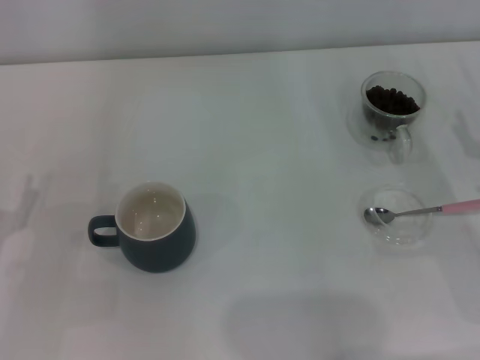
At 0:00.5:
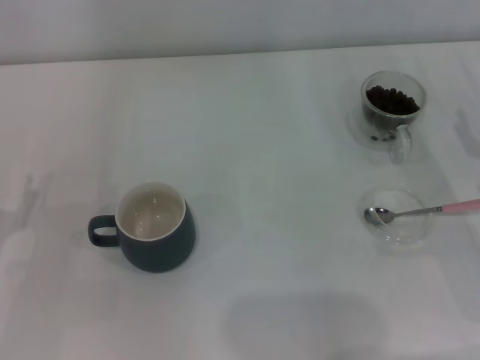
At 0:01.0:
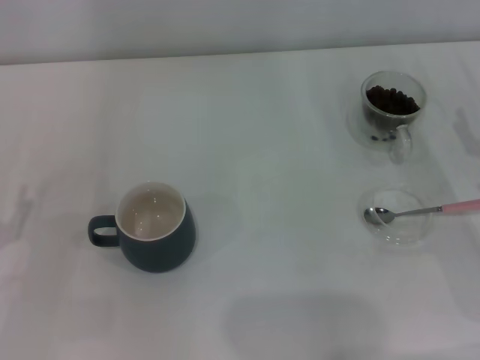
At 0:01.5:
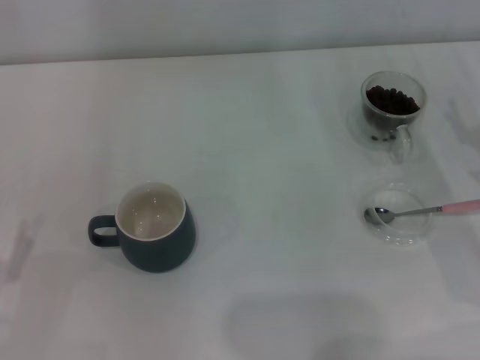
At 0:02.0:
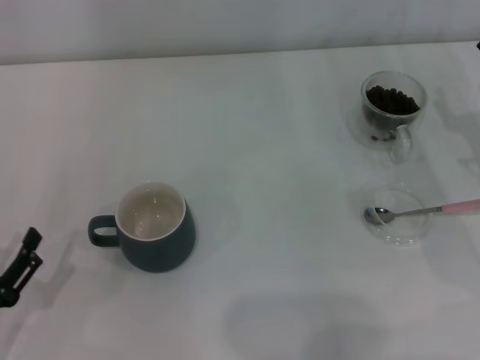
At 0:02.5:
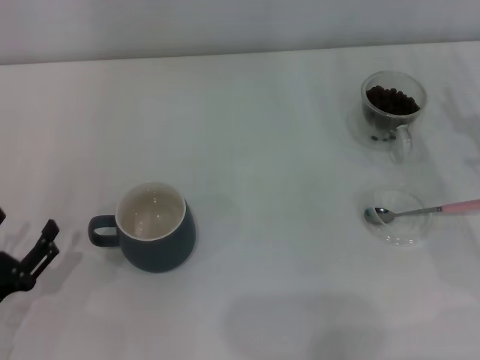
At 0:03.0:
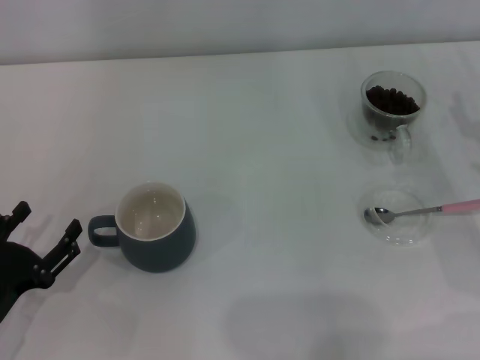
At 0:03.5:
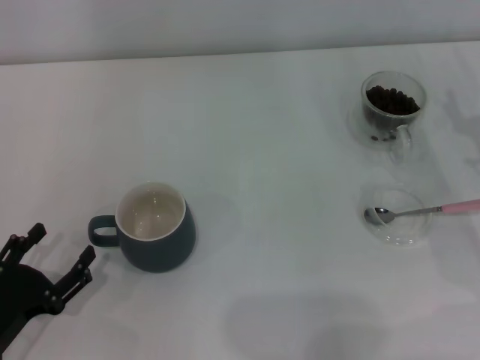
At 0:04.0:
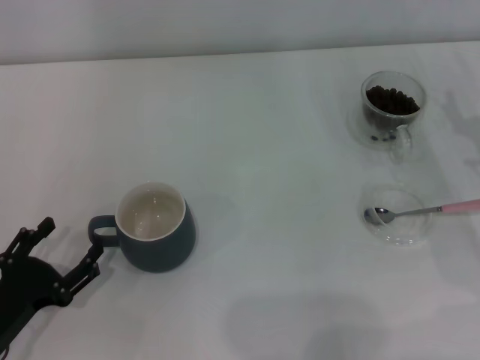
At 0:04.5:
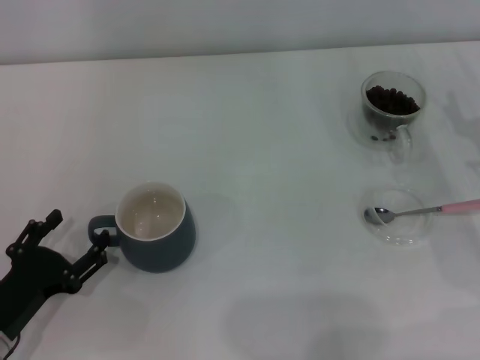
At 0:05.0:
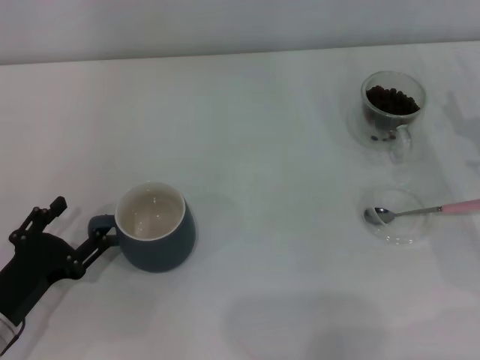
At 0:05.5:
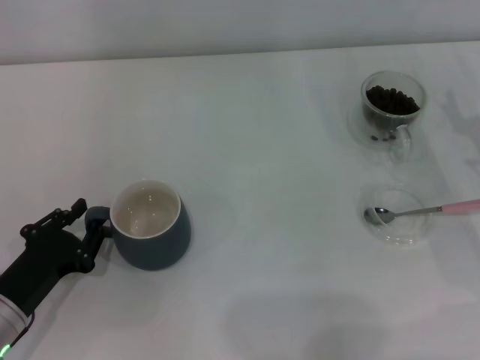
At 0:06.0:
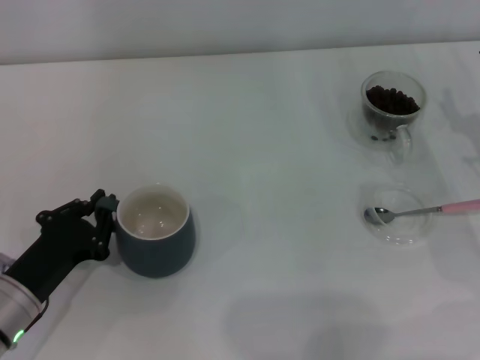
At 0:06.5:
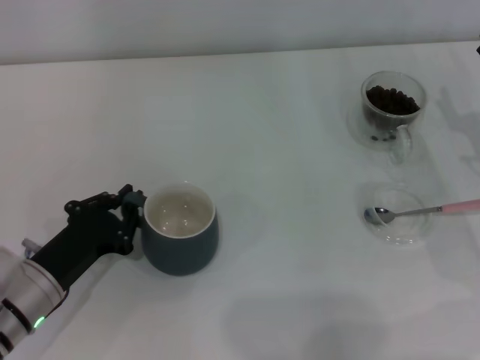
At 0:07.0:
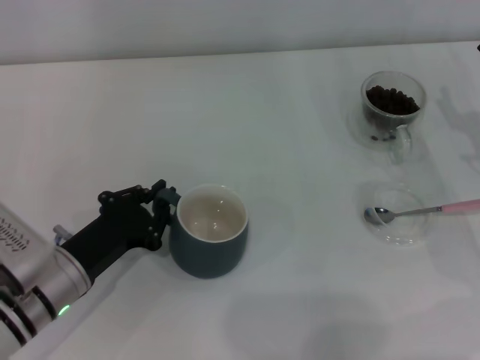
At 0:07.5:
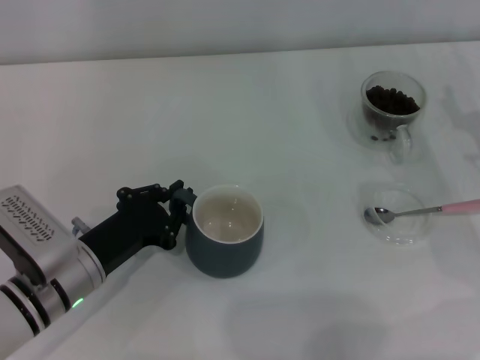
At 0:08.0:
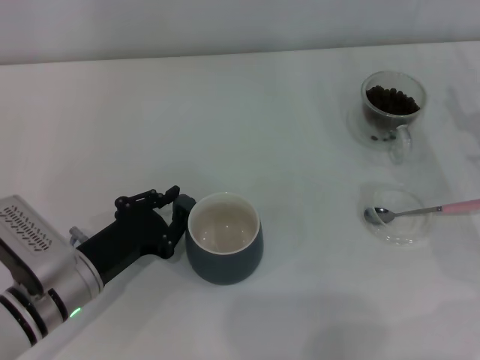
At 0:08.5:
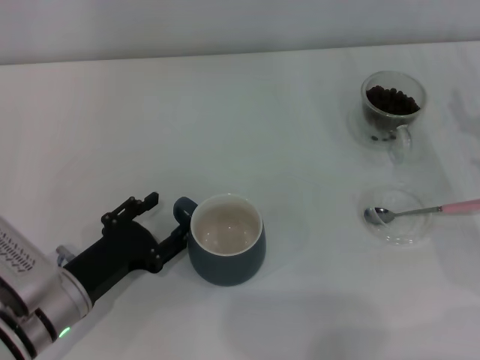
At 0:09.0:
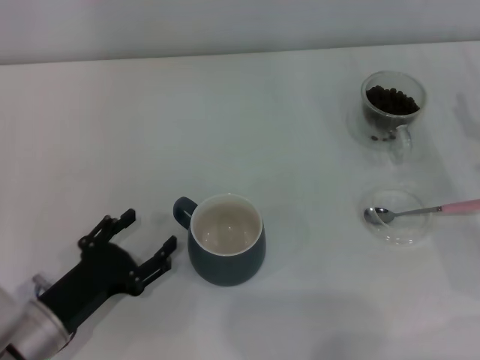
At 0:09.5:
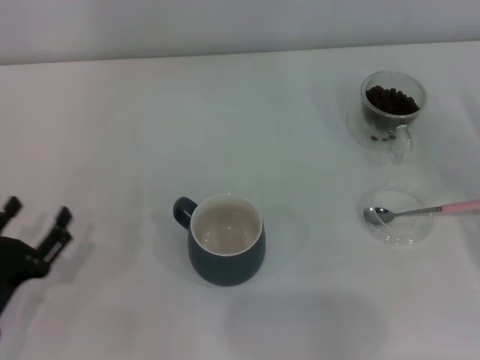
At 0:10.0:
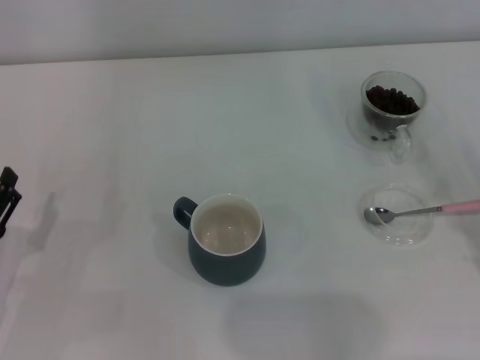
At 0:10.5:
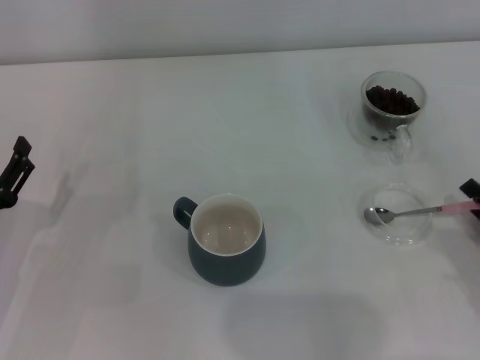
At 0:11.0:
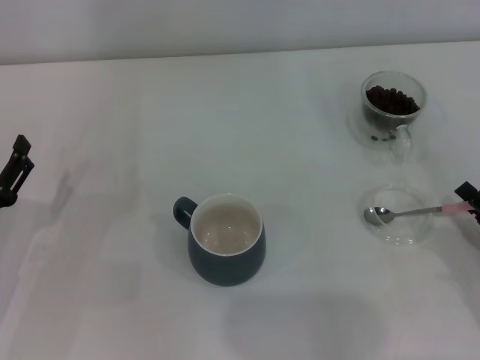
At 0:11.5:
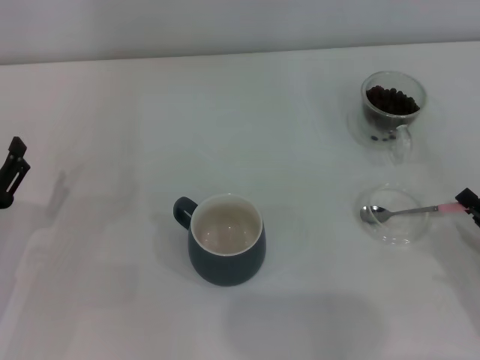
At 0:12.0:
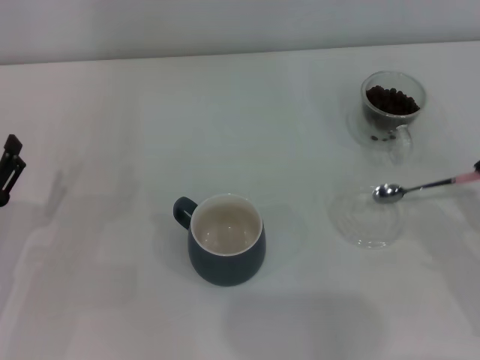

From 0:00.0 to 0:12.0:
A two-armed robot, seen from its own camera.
Task of the whole recording: Use a pink spoon to take out the coffee beans from the glass and pour them into the gray cup.
Step, from 0:00.0 to 0:08.5: Move the cup to the center of view with the left gripper.
From 0:00.0 to 0:02.0: The left gripper moves backward, approximately 5 cm.
From 0:02.0 to 0:04.0: There are only small adjustments of the grippers.
From 0:04.0 to 0:06.0: The left gripper ends up about 5 cm from where it was, and closes up.
From 0:06.0 to 0:08.0: The left gripper moves to the right, approximately 5 cm.
From 0:08.0 to 0:10.0: The left gripper shifts roughly 10 cm to the left, and opens. Meanwhile the right gripper heads backward, covering approximately 15 cm.
From 0:10.0 to 0:12.0: The right gripper closes.

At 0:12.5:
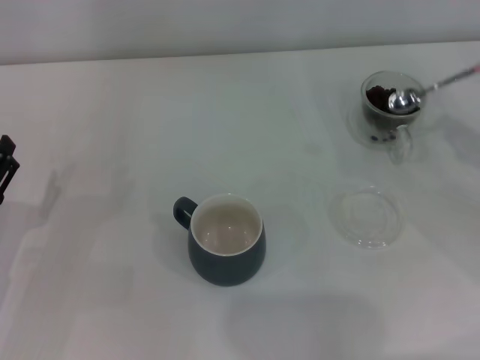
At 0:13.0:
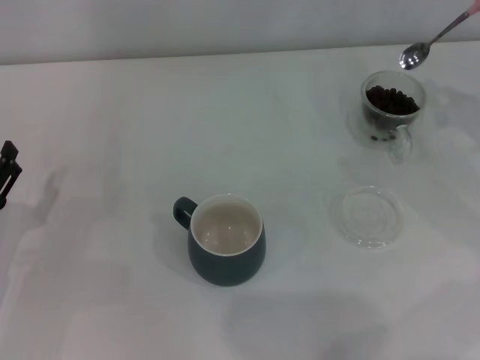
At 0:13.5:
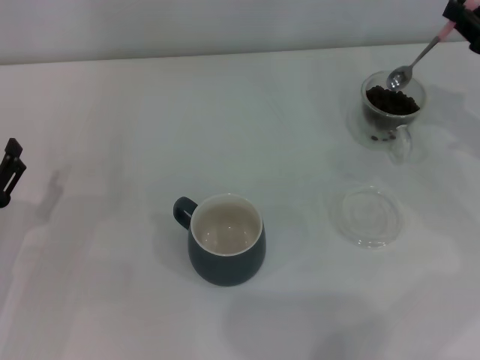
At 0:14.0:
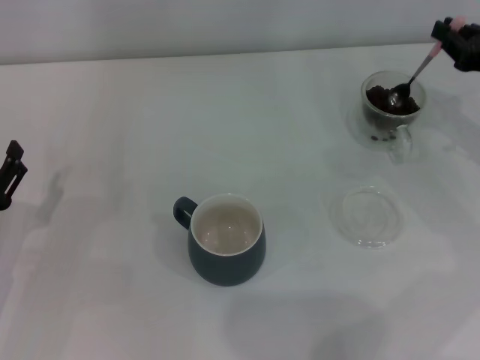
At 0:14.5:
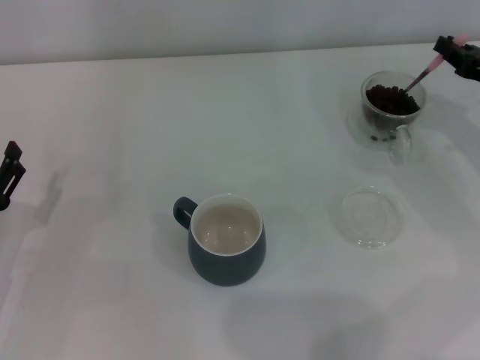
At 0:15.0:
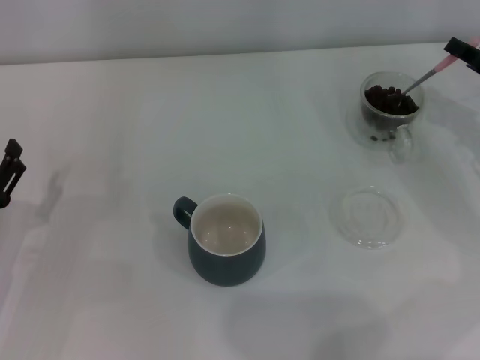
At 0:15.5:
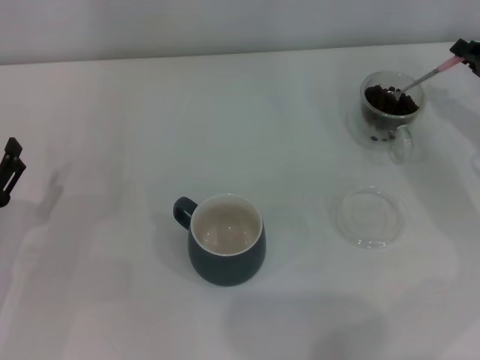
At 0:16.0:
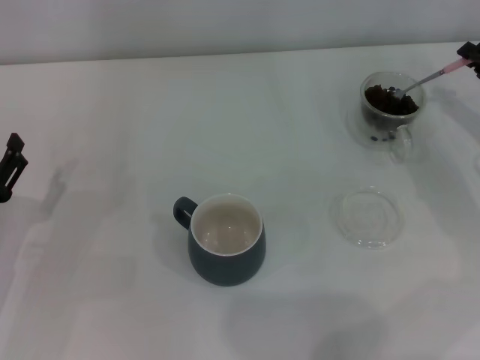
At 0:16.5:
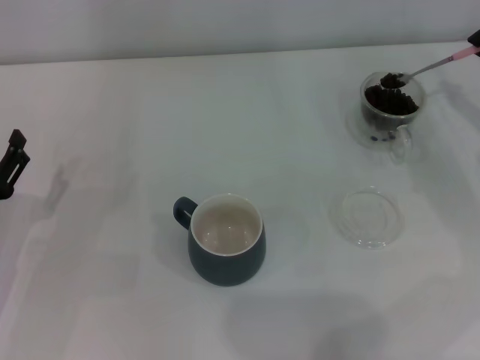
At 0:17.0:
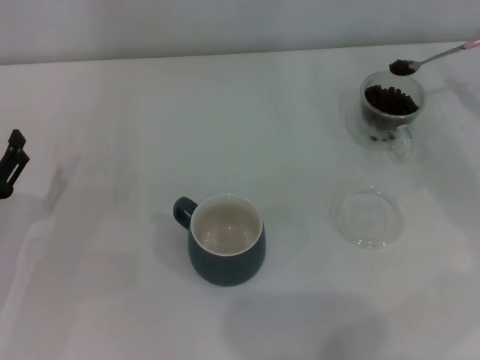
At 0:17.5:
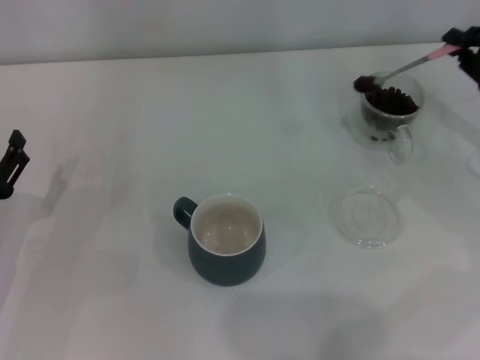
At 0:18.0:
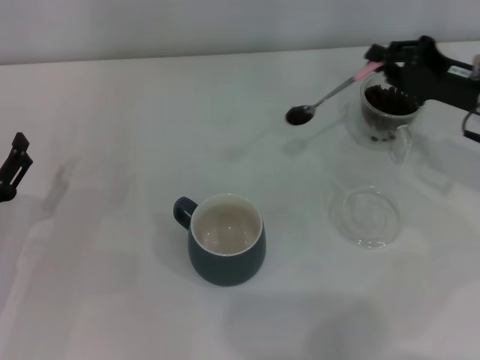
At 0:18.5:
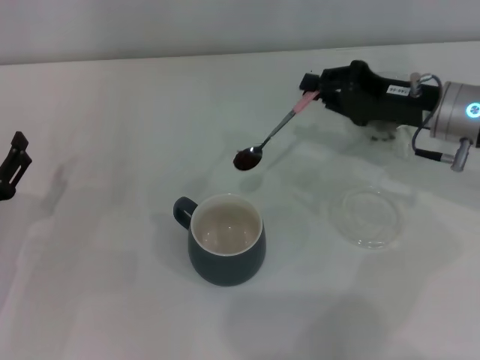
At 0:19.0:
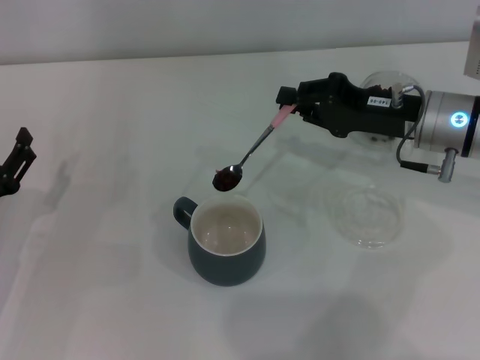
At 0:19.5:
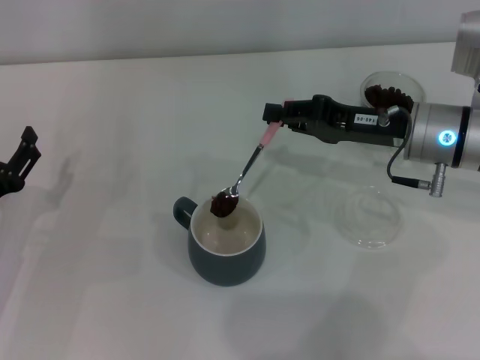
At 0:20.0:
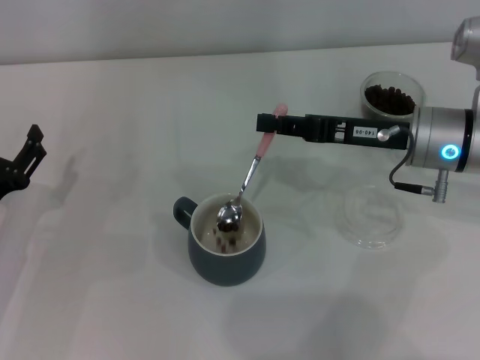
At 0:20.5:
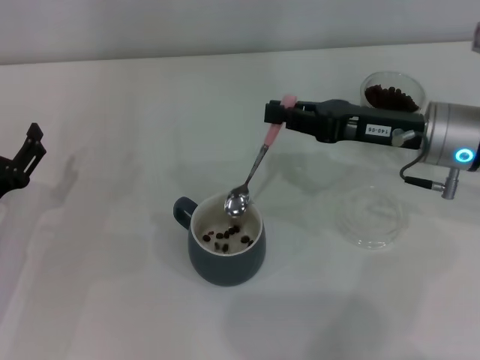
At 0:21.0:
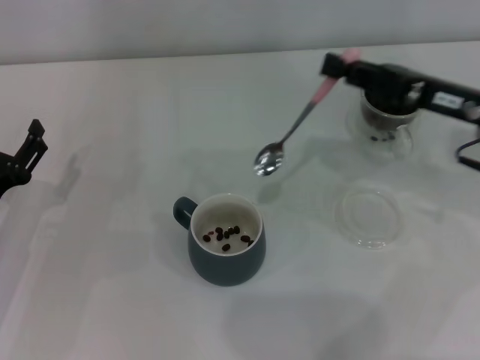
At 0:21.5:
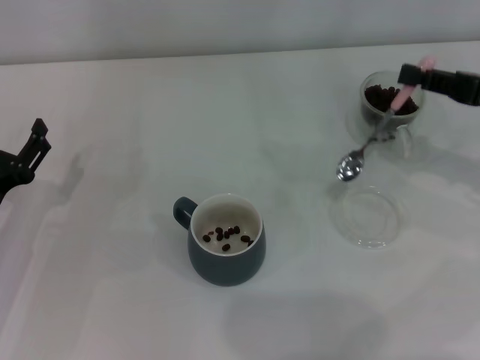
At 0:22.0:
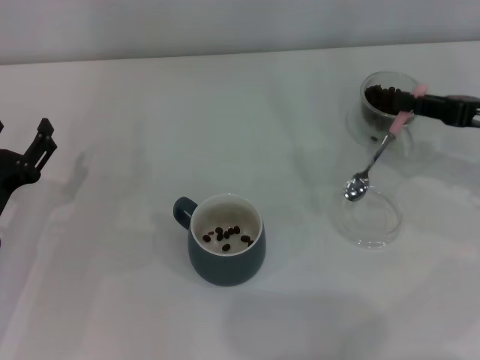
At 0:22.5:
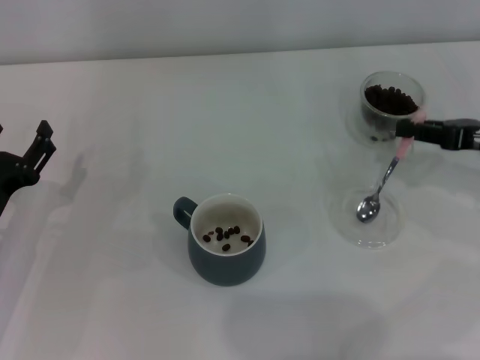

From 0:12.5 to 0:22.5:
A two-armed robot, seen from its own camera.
Task of the whole recording: Use a pink spoon to take out the coffee beans from the glass and pour them into the gray cup.
Step, from 0:12.5 to 0:20.5: Scoop a spoonful of beans into the cup with the right gripper.
From 0:12.5 to 0:14.5: The right gripper moves forward, about 10 cm.
From 0:16.5 to 0:18.5: The right gripper goes about 10 cm to the left.
From 0:20.5 to 0:22.5: The right gripper heads to the right, covering about 15 cm.

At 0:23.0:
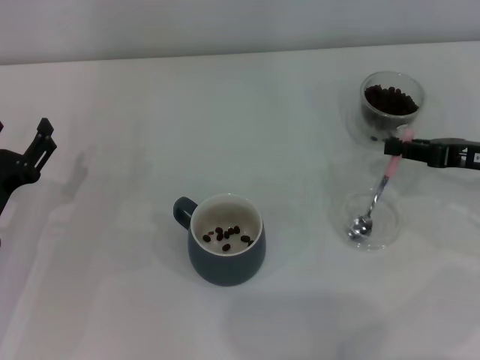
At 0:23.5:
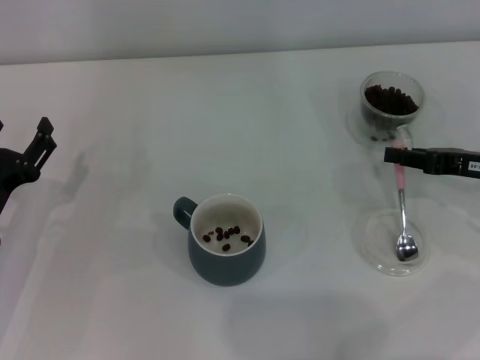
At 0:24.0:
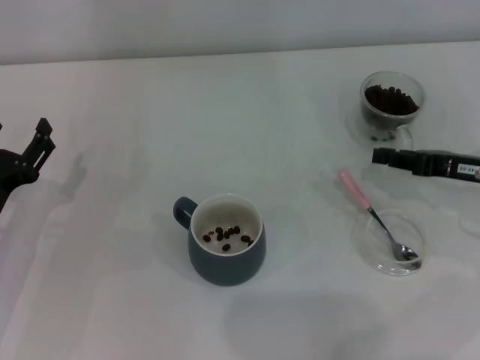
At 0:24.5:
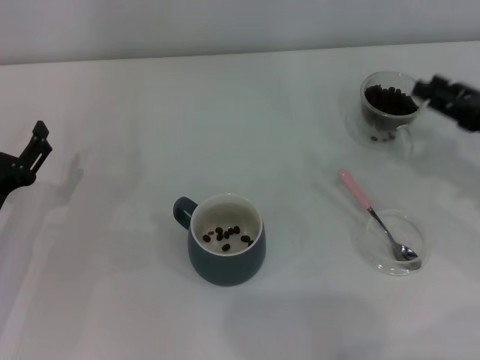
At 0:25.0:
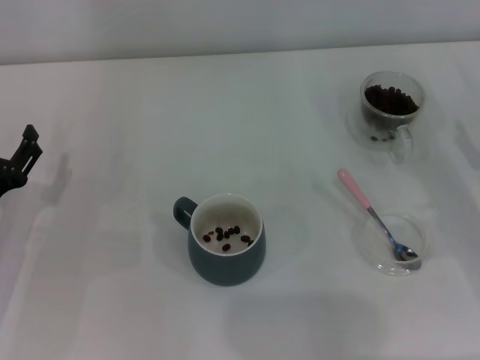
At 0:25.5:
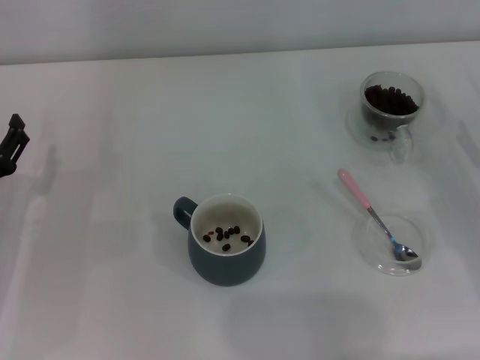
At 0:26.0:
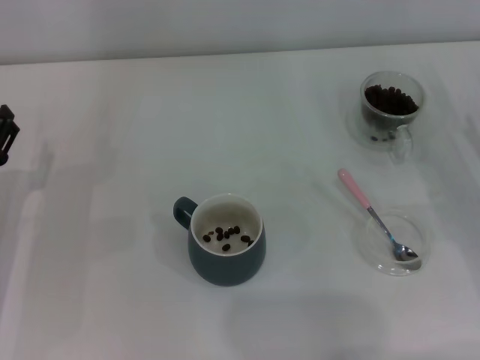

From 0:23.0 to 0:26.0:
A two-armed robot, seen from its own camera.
Task of the whole recording: Use a pink spoon to take out the coffee beans from the glass and pour them into the gray cup.
From 0:23.0 to 0:24.5: The right gripper opens up.
From 0:24.5 to 0:26.0: The right gripper moves about 5 cm, and opens.
